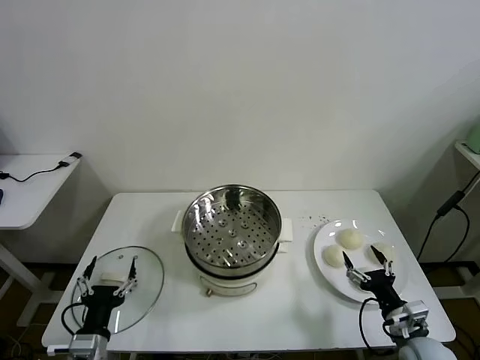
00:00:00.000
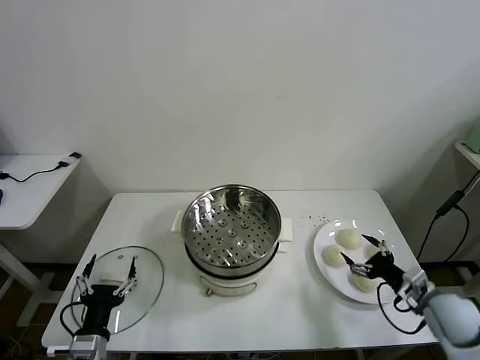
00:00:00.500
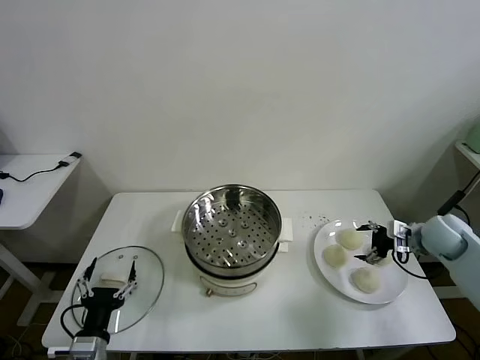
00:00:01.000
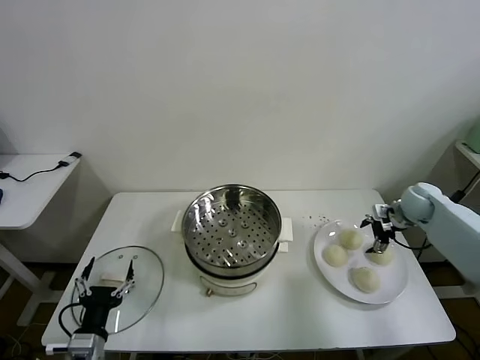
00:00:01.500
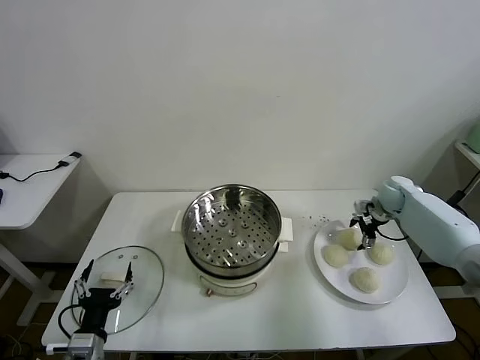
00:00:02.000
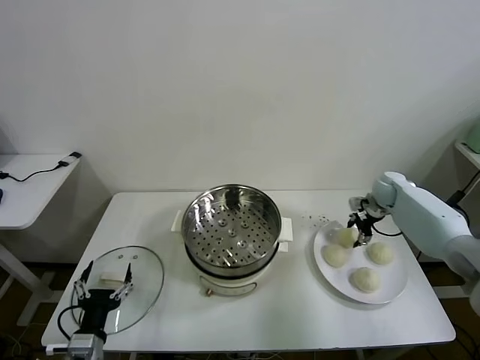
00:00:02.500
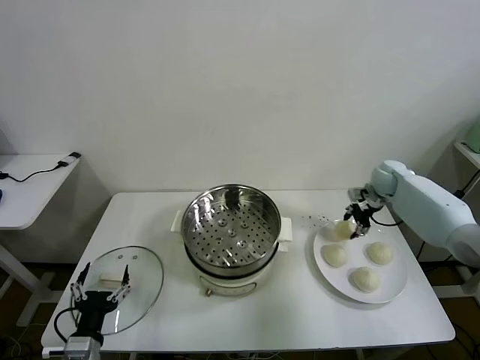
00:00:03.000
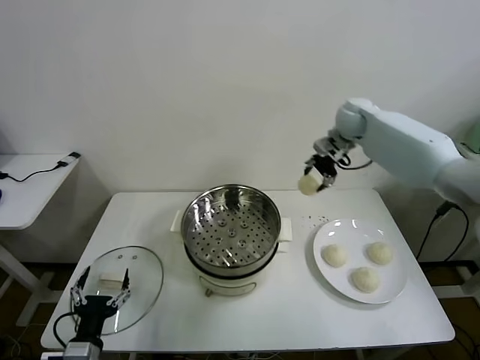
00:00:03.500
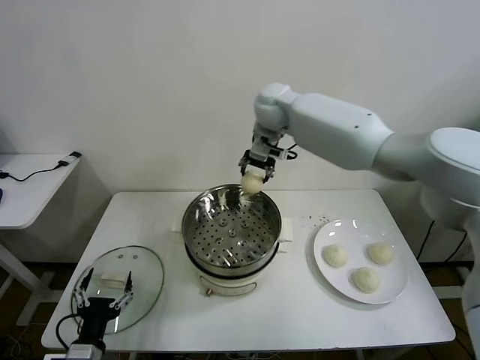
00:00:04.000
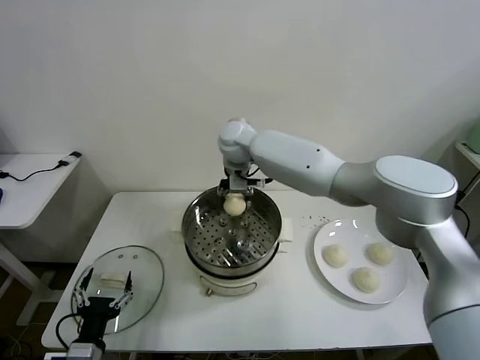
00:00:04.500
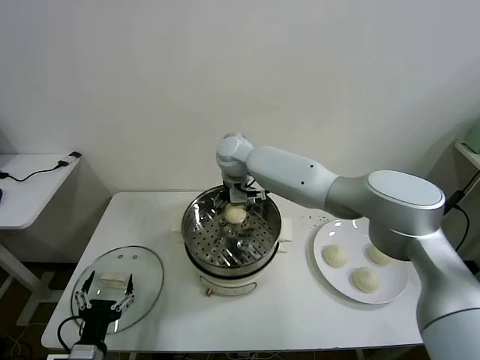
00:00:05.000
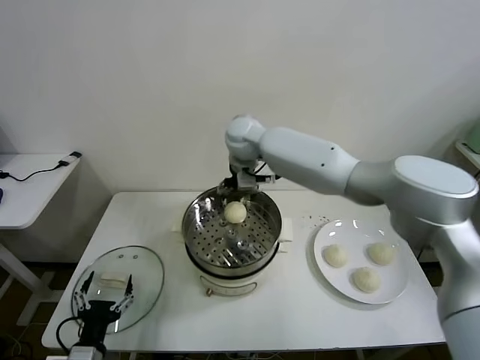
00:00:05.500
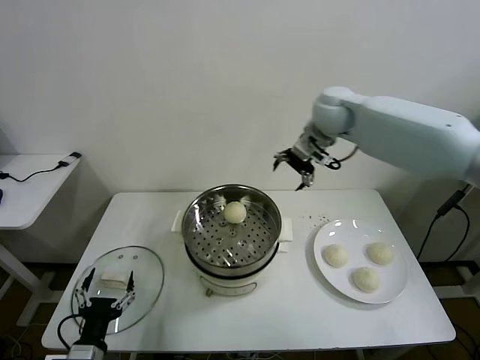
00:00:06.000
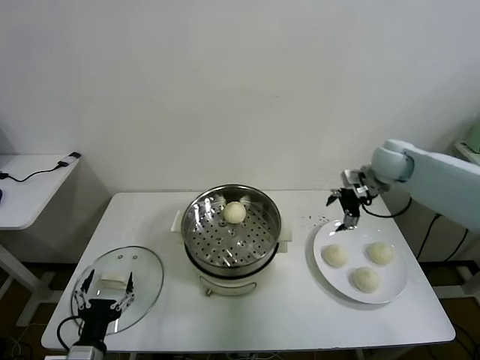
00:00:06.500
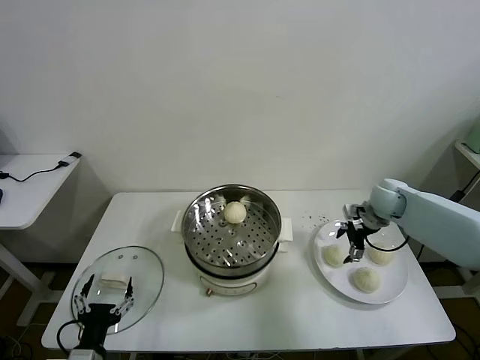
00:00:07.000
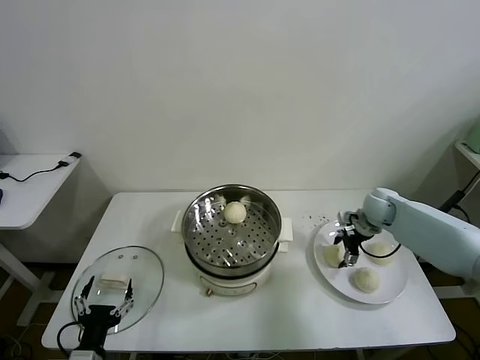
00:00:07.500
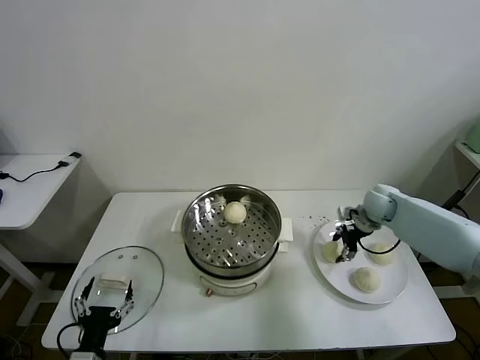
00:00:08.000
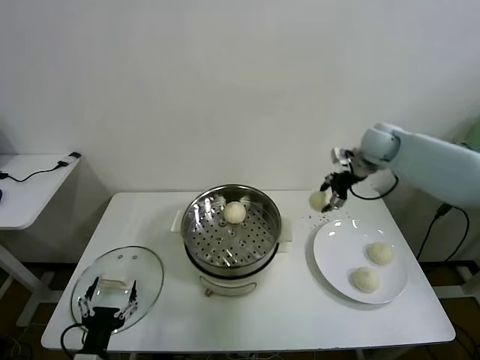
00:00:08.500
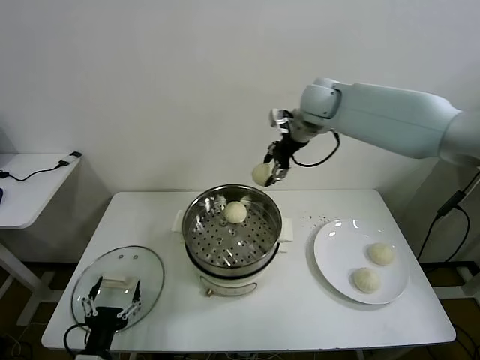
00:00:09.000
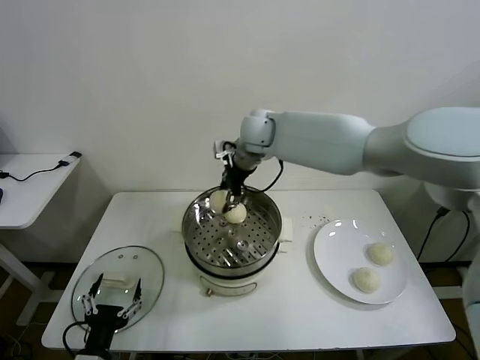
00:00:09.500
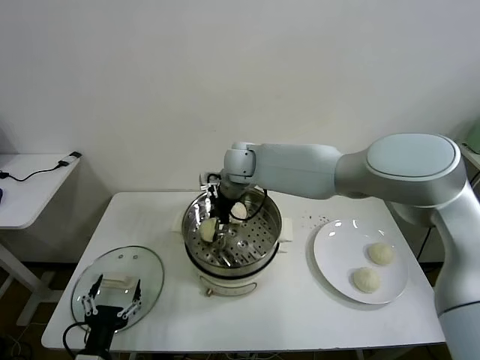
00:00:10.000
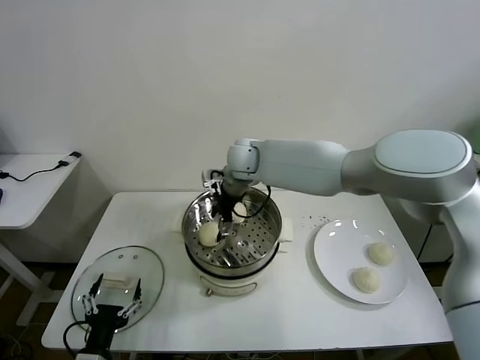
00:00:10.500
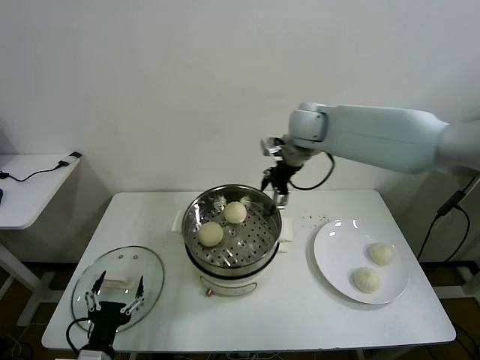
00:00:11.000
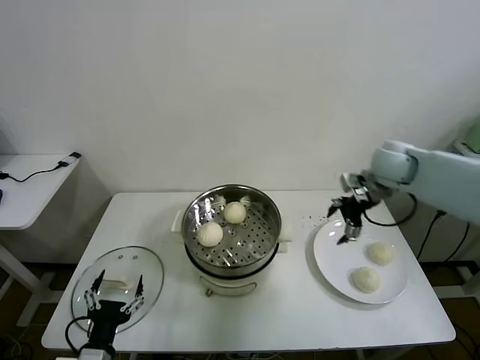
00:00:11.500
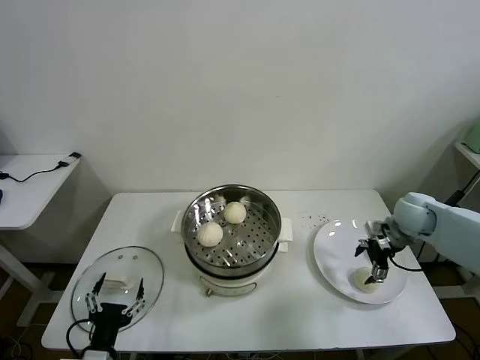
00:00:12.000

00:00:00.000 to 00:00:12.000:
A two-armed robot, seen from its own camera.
Task of the whole recording: take steamed baozi put them in steamer then cover it.
Step, 00:00:00.000 to 00:00:02.500: Grasp the baozi in the plate with right gripper.
Step, 00:00:03.000 to 00:00:05.000: Place the baozi on the steamer with right gripper.
Step, 00:00:05.500 to 00:00:08.000: Grasp the baozi in the plate with right gripper.
Step, 00:00:08.500 to 00:00:10.500: Place the baozi on the steamer with right gripper.
00:00:02.000 to 00:00:04.000: The right gripper heads to the left and upward, covering some 40 cm, and closes up.
00:00:04.000 to 00:00:06.000: The right gripper travels to the right by about 20 cm, and opens up.
00:00:06.000 to 00:00:08.000: The right gripper is displaced downward and to the right by about 25 cm, and closes its fingers.
00:00:08.000 to 00:00:10.000: The right gripper travels to the left by roughly 35 cm.
00:00:10.000 to 00:00:12.000: The right gripper travels to the right by some 40 cm, and opens its fingers.

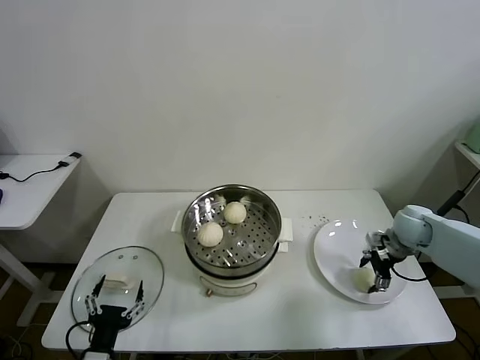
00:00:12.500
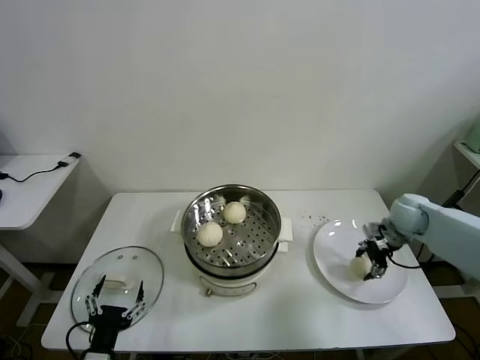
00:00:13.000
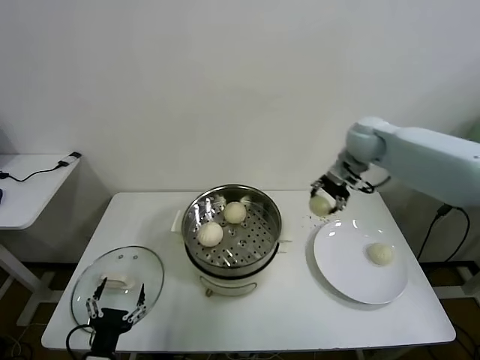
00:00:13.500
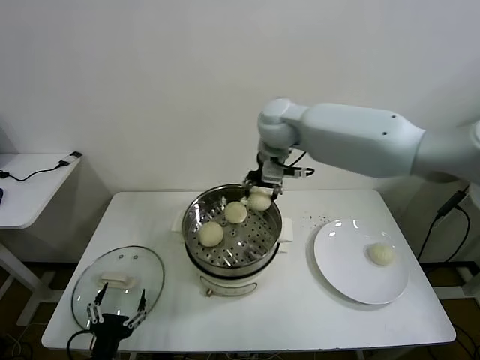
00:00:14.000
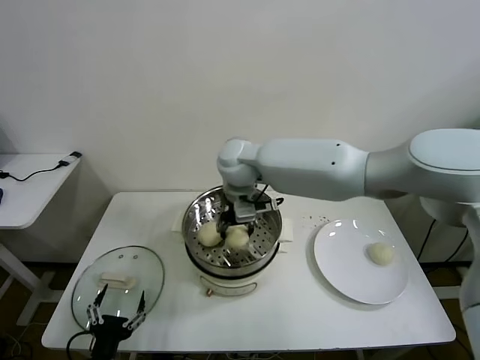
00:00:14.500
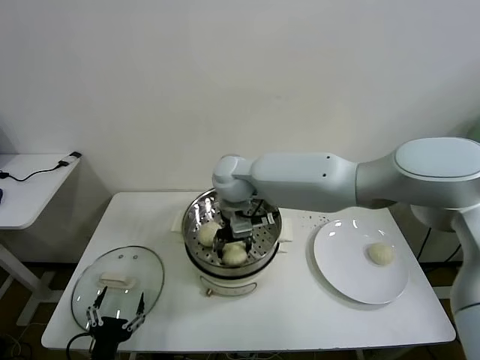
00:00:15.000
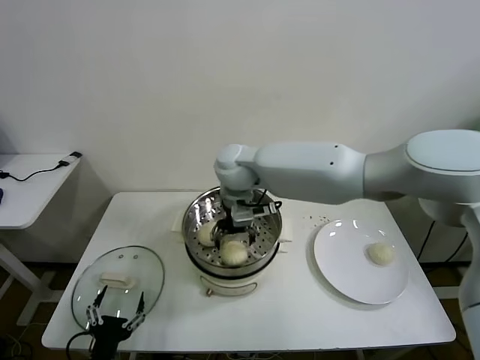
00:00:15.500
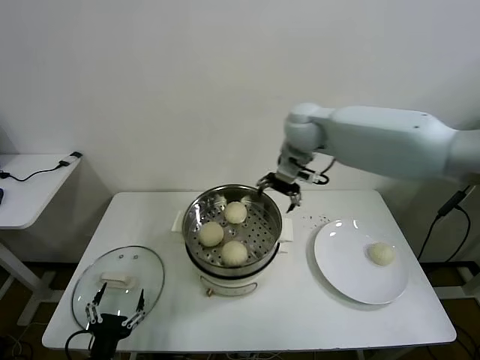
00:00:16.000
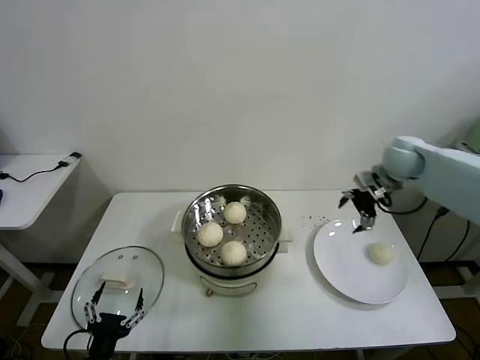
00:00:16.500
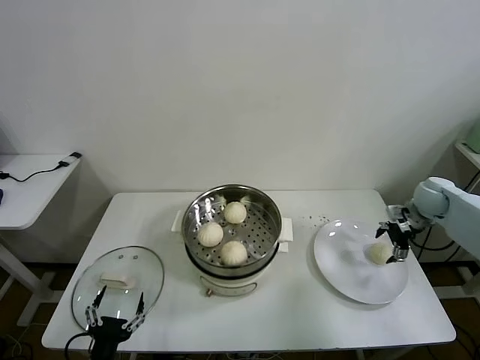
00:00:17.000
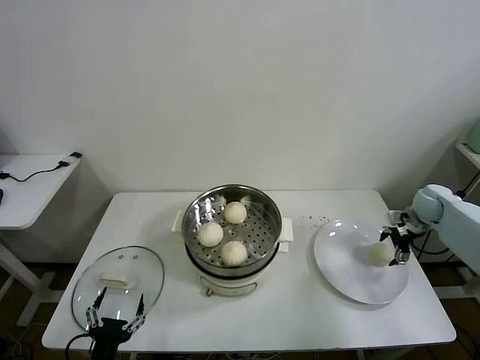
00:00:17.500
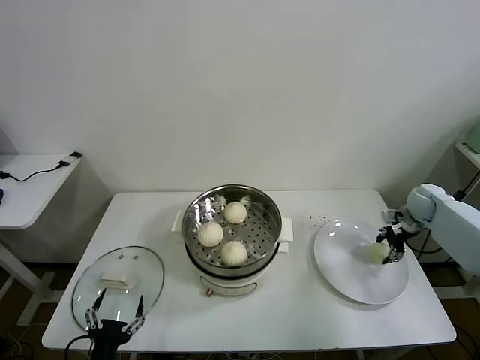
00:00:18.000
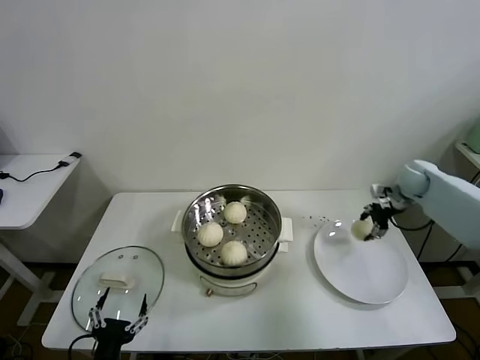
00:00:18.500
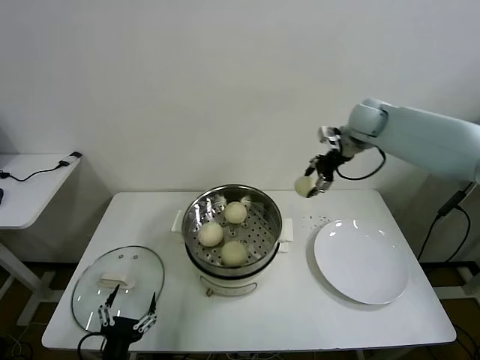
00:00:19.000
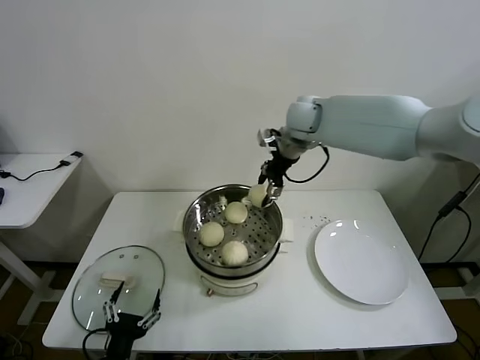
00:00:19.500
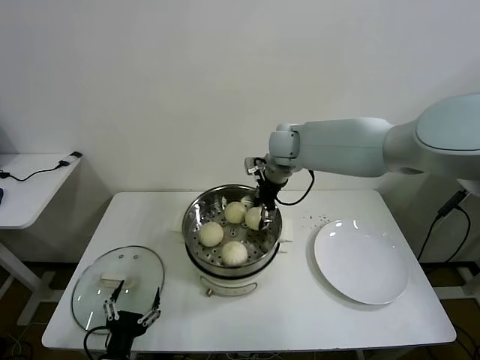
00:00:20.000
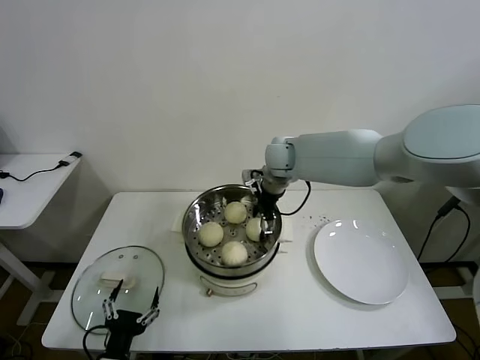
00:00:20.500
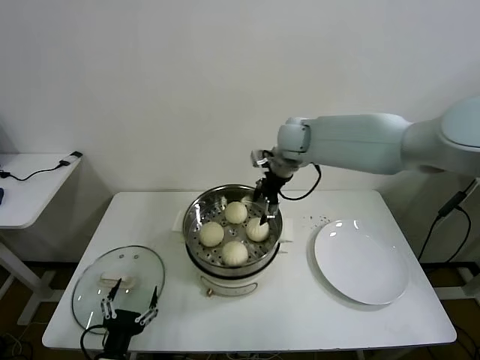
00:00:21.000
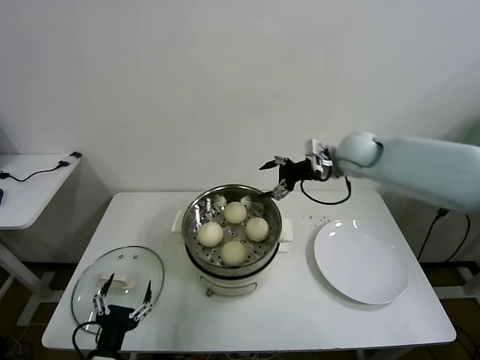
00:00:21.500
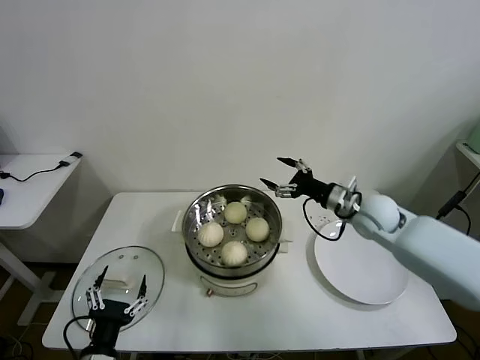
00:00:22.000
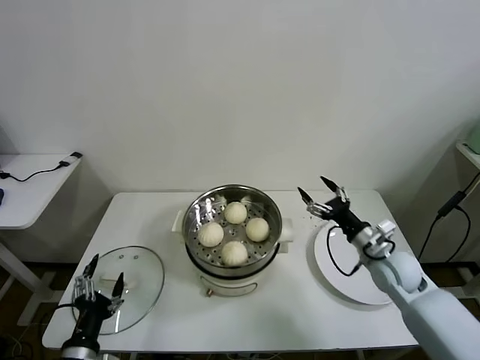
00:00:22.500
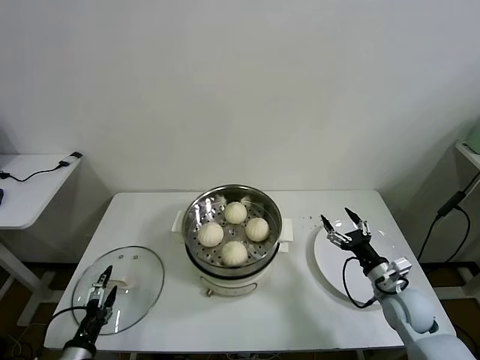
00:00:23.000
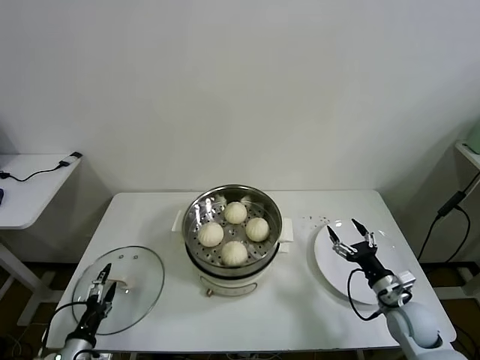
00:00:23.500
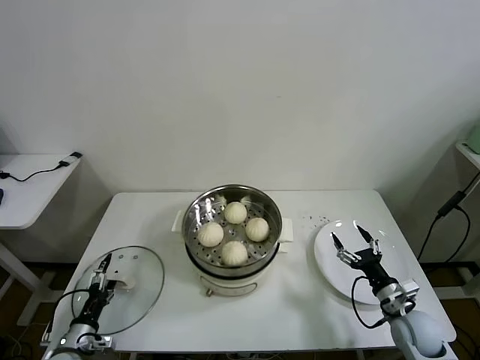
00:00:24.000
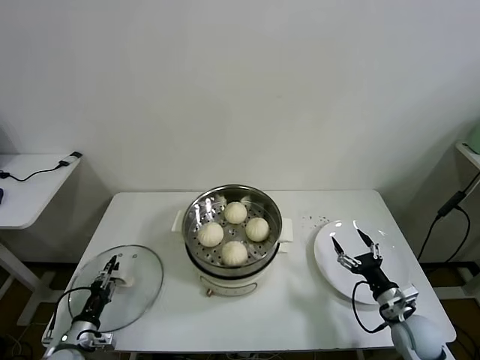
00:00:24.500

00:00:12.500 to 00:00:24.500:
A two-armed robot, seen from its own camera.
Task of the whole recording: take steamed baozi put them in steamer then cover it.
Step, 00:00:13.000 to 00:00:15.500: Place the baozi on the steamer with right gripper.
Step, 00:00:16.000 to 00:00:18.000: Grasp the baozi in the plate with right gripper.
Step, 00:00:18.500 to 00:00:21.000: Place the baozi on the steamer with right gripper.
00:00:12.500 to 00:00:14.500: The right gripper moves to the left, about 40 cm, and closes up.
00:00:14.500 to 00:00:16.500: The right gripper moves to the right, some 40 cm, and opens up.
00:00:16.500 to 00:00:18.500: The right gripper is displaced downward and to the right by approximately 10 cm, and closes up.
00:00:18.500 to 00:00:20.500: The right gripper is displaced to the left by about 35 cm, and opens its fingers.
00:00:20.500 to 00:00:22.500: The right gripper moves to the right, backward and downward, about 35 cm. Meanwhile the left gripper shifts by some 5 cm.
00:00:22.500 to 00:00:24.500: The right gripper shifts about 15 cm downward, backward and to the right. The left gripper heads downward, to the left and forward, covering approximately 20 cm, and closes.

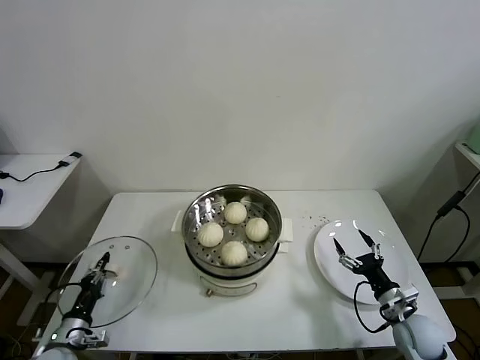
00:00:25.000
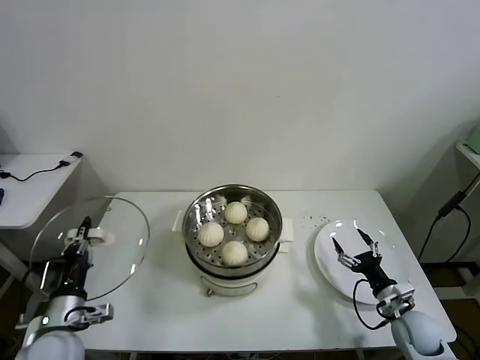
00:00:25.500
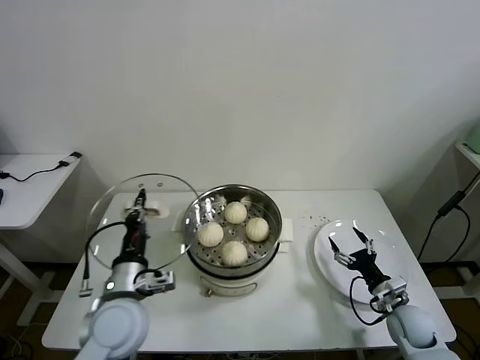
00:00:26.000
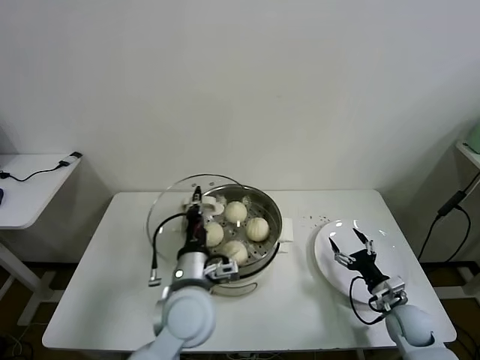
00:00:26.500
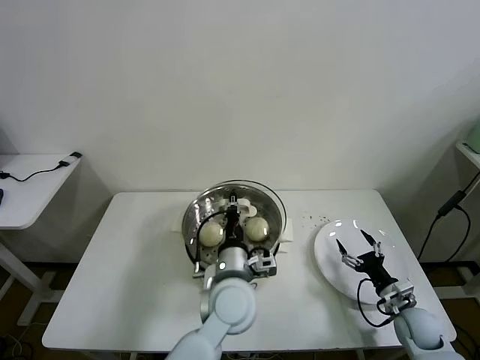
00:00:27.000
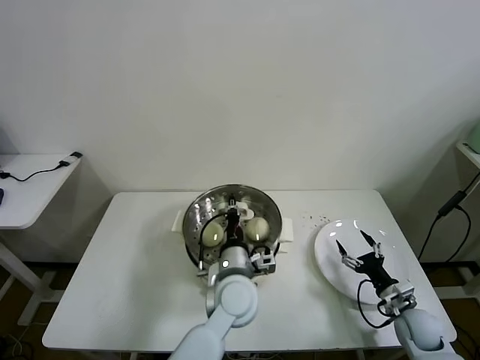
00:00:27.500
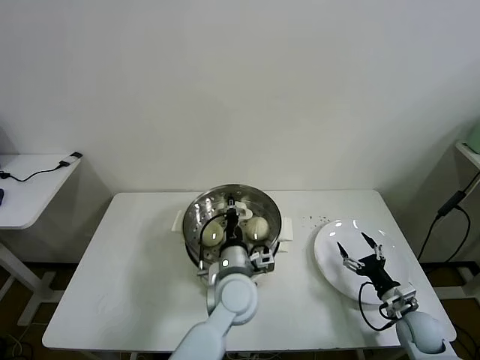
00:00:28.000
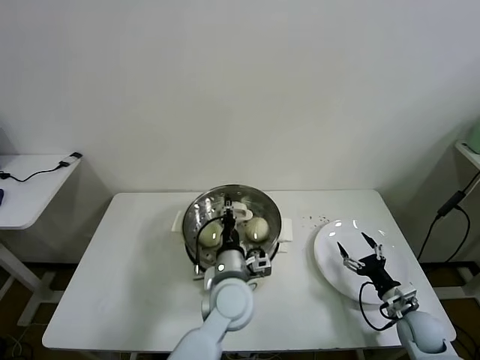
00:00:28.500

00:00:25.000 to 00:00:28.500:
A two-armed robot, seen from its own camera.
Task of the whole recording: take steamed baozi put them in steamer then cover it.
00:00:25.000 to 00:00:27.000: The left gripper shifts roughly 40 cm to the right and upward.
00:00:27.000 to 00:00:28.500: There are only small adjustments of the grippers.
